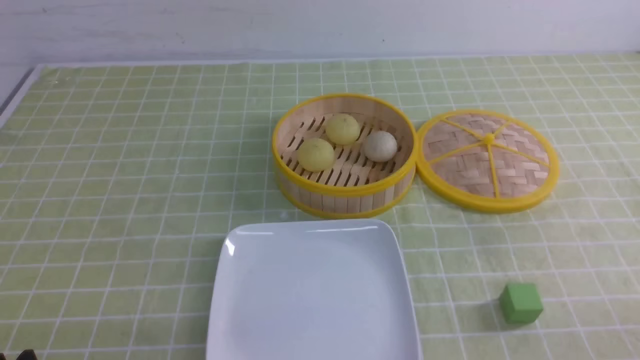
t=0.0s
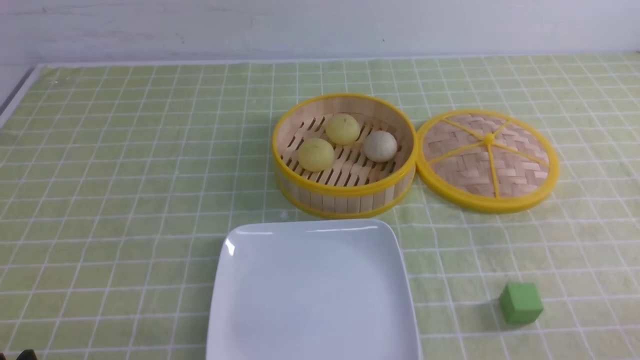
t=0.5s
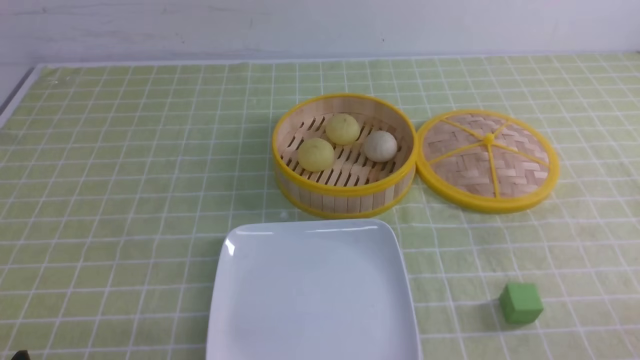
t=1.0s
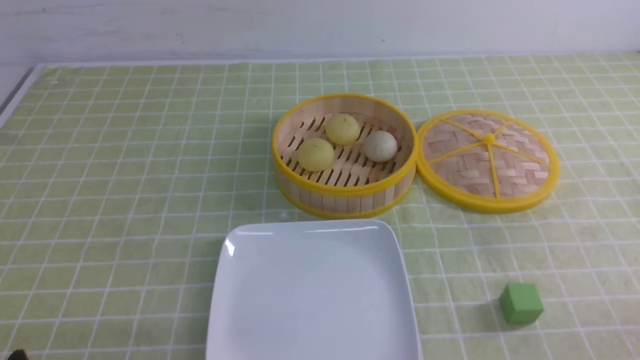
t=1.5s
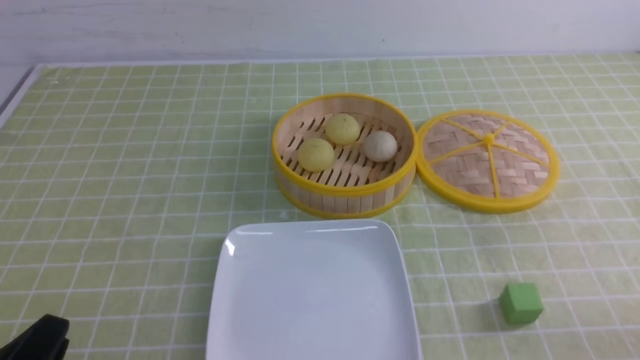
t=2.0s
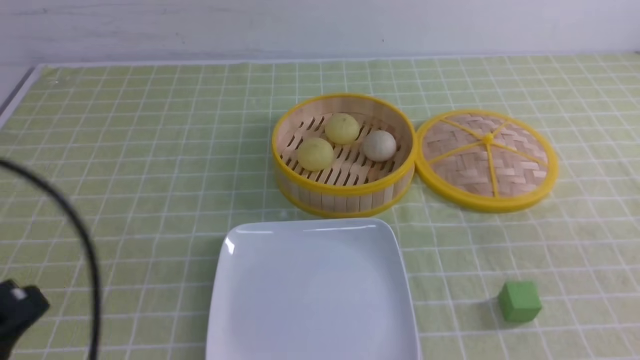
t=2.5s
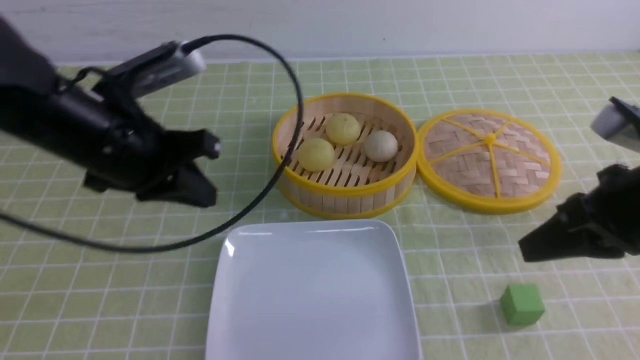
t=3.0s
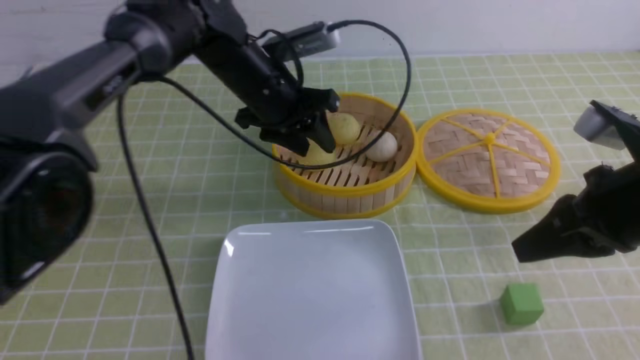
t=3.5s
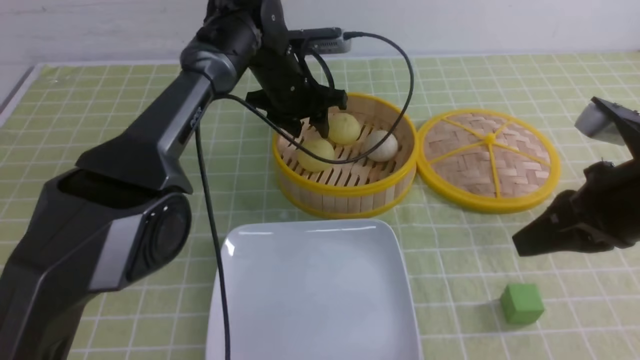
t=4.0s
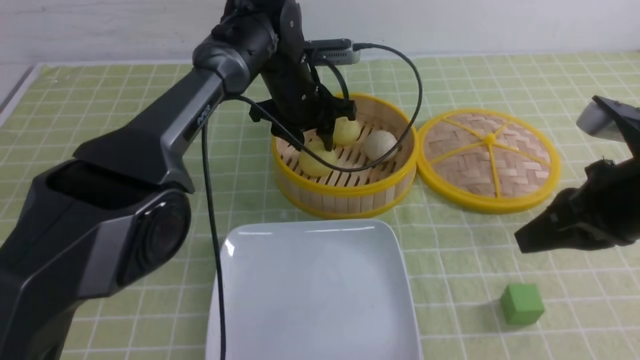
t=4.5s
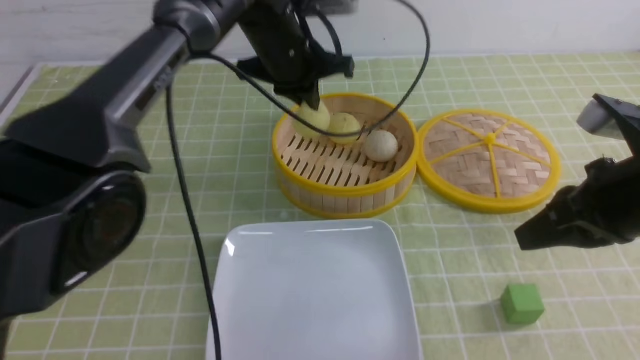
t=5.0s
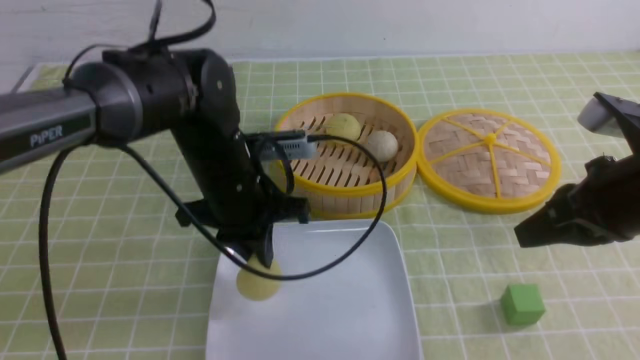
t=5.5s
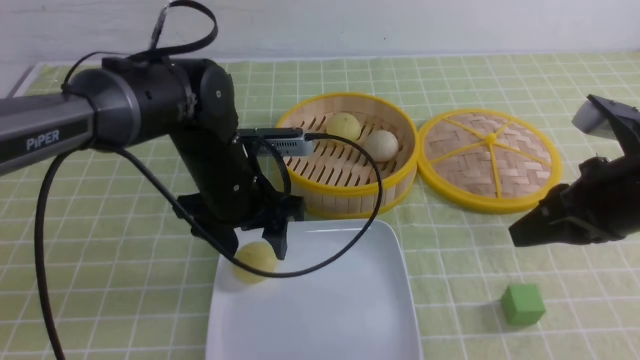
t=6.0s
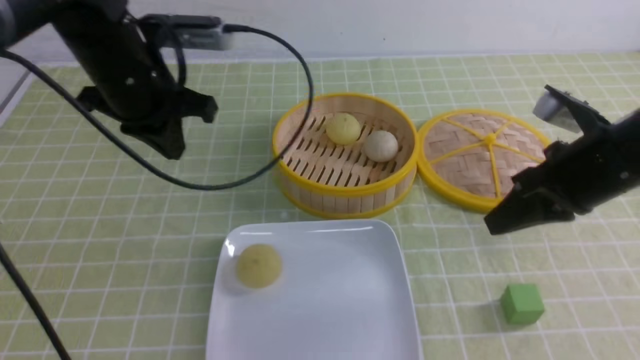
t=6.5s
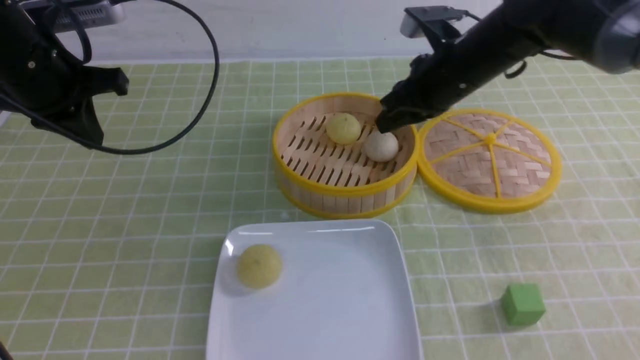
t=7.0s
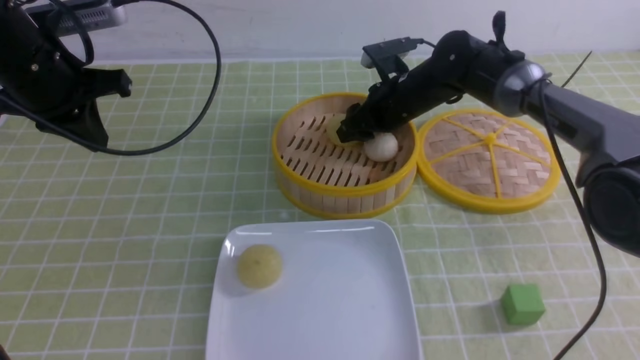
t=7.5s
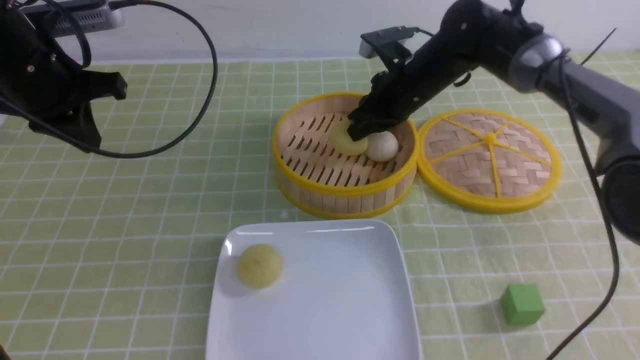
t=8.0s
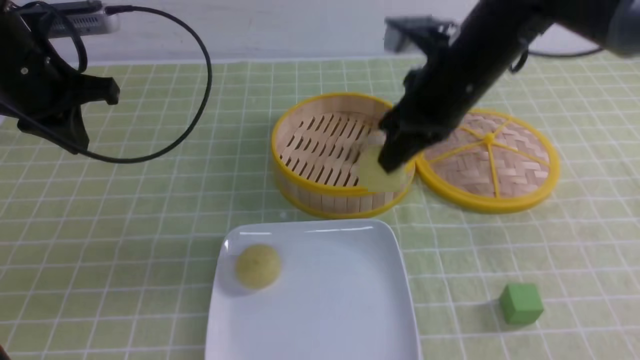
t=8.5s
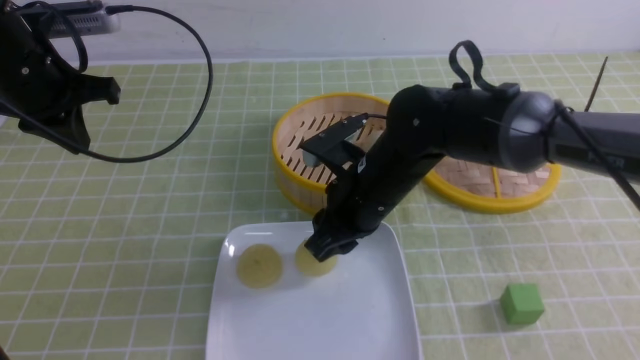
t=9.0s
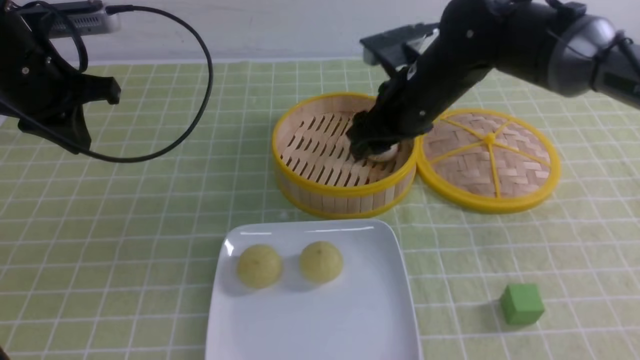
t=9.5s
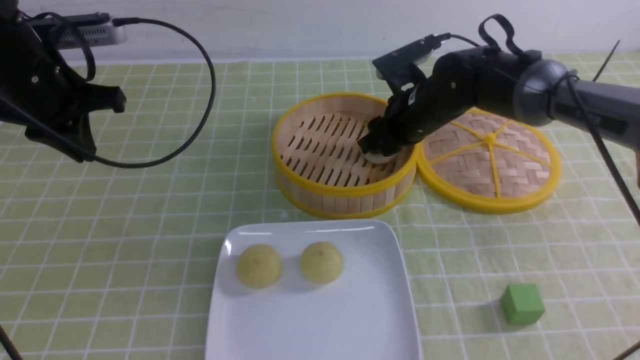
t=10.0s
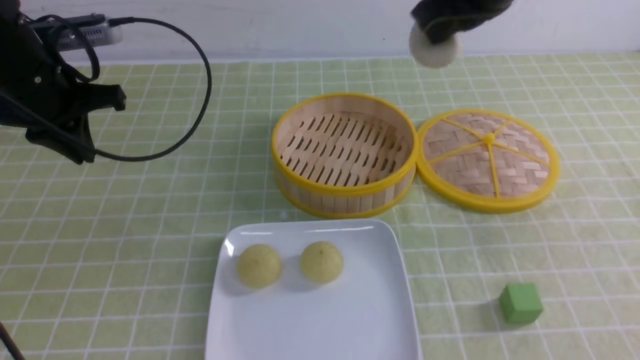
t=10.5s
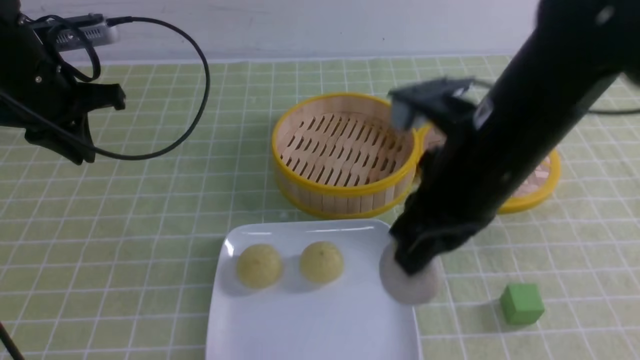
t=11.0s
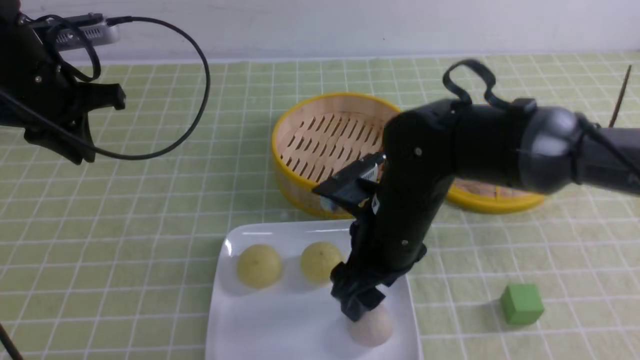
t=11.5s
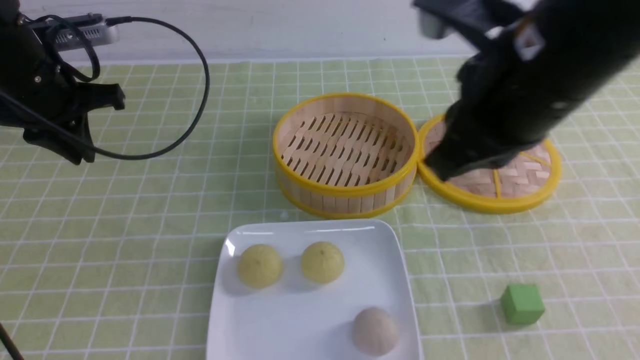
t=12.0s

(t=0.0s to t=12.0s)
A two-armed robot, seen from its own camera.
Step, t=0.0s - t=4.5s: use the left arm to grab the steamed stuffed bun that is closest to it.
Step, t=5.0s - t=5.5s: use the left arm to put the steamed stuffed bun into the plate.
Step, t=6.0s - t=7.5s: use the right arm to grab the steamed stuffed bun that is closest to it.
Step, t=8.0s - t=9.0s: use the right arm to put the steamed stuffed bun into the plate.
Step, t=9.5s - t=10.0s: use the right arm to grab the steamed stuffed bun that is closest to it.
Step, t=10.5s - t=11.0s: use the right arm to put the steamed stuffed bun into the plate.
t=2.0s - t=4.0s: The right gripper travels forward and upward by roughly 20 cm, and closes up, while the left gripper goes approximately 50 cm forward and to the right, and opens.
t=4.0s - t=6.0s: The left gripper travels backward by roughly 15 cm, and closes and opens again.
t=6.0s - t=8.0s: The left gripper heads to the left and upward, covering some 20 cm, and closes its fingers. The right gripper travels forward and to the left by roughly 25 cm.
t=8.0s - t=10.0s: The right gripper moves some 15 cm backward and comes back, and opens.
t=10.0s - t=12.0s: The right gripper shifts some 30 cm backward and upward, and closes.

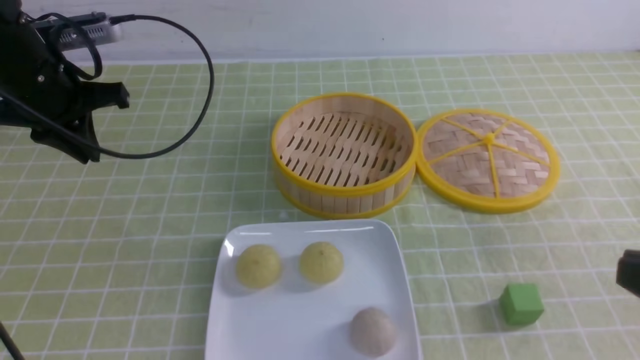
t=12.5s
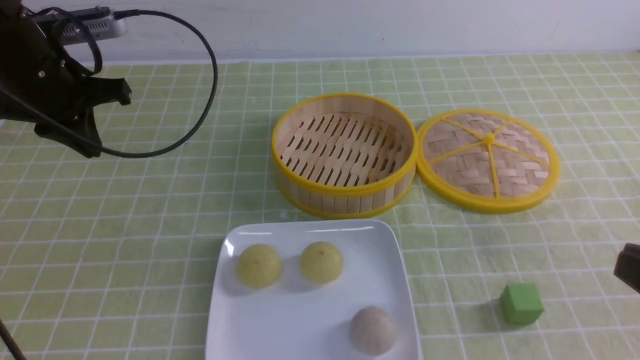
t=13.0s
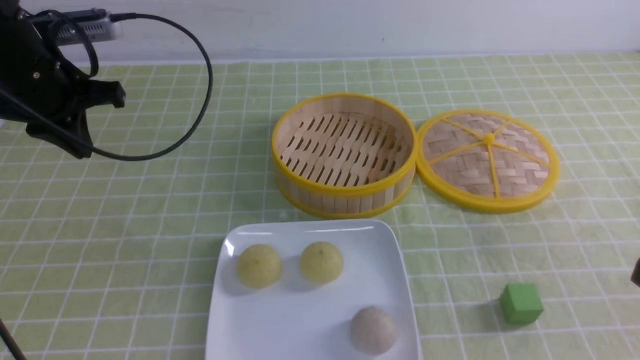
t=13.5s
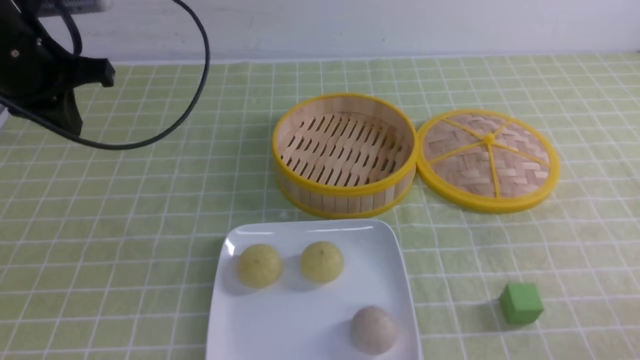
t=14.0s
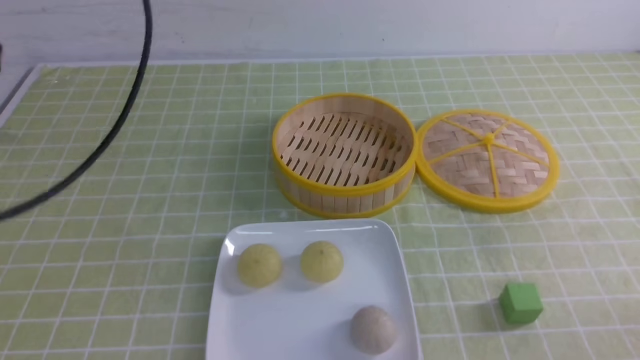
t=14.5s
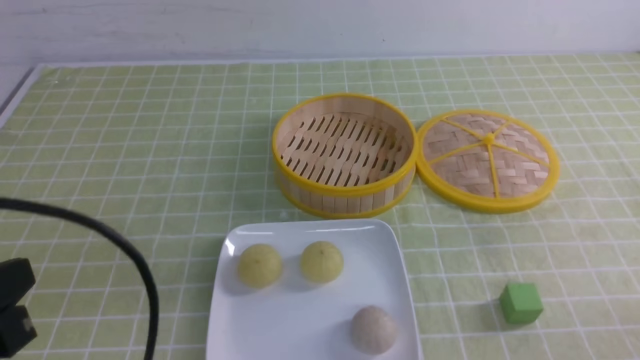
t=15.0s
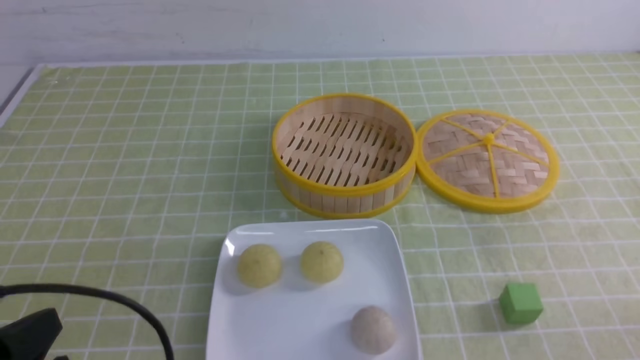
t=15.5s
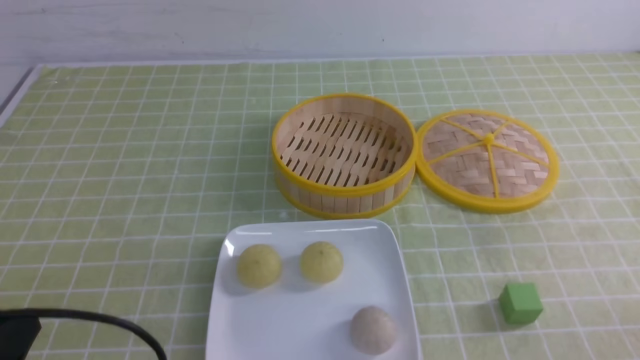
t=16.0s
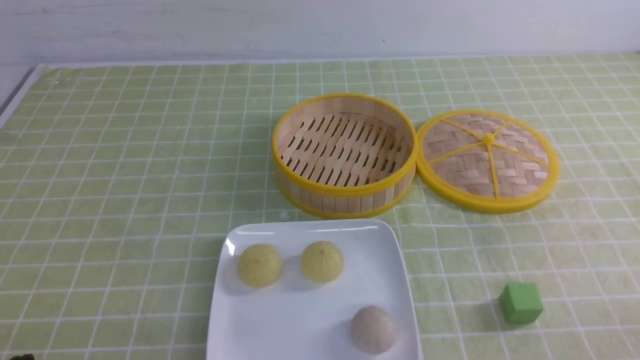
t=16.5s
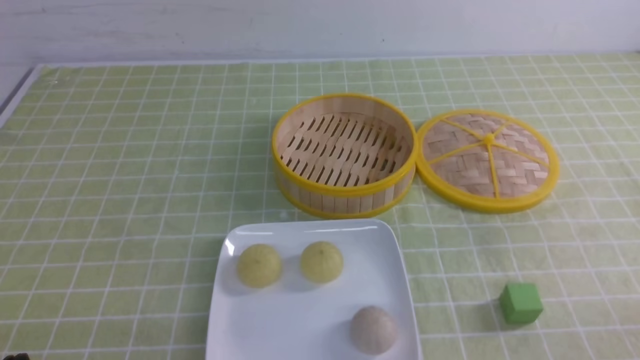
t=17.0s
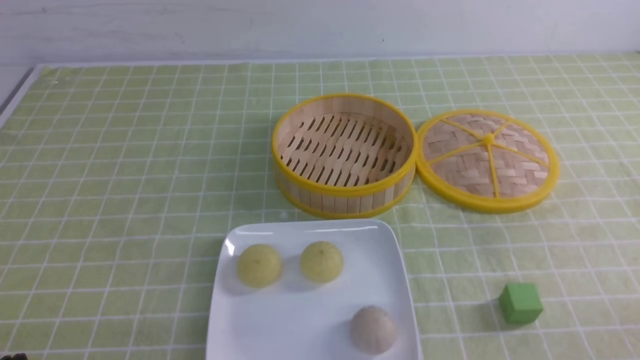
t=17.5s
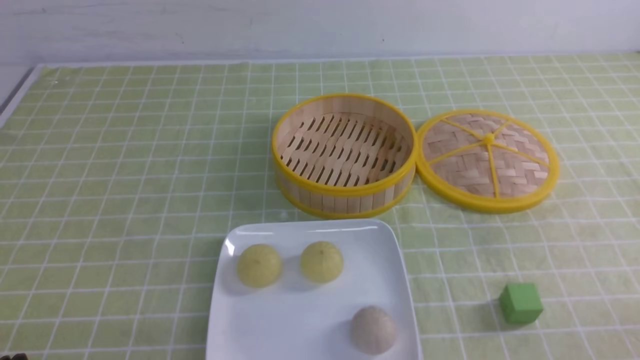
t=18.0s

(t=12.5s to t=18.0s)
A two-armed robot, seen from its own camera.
t=12.5s - t=14.5s: The left gripper heads backward and upward, covering some 20 cm.
t=14.5s - t=16.0s: The left gripper goes about 25 cm downward and backward.
t=16.0s - t=18.0s: The left gripper travels downward by roughly 5 cm.
